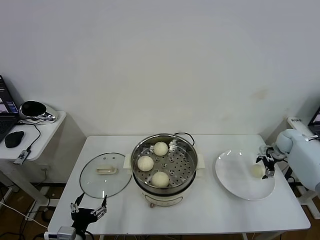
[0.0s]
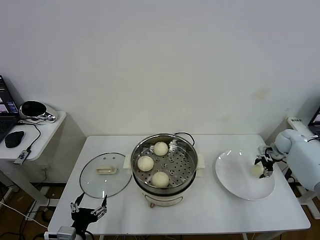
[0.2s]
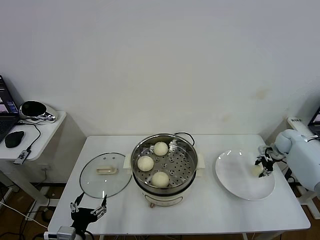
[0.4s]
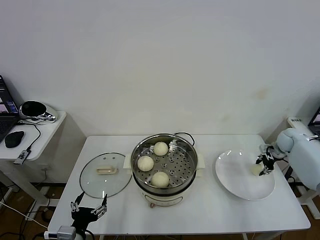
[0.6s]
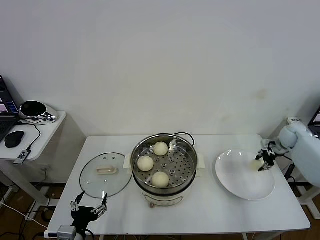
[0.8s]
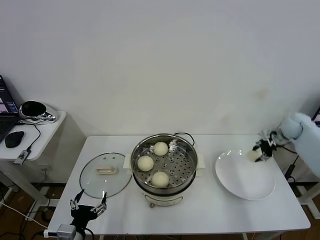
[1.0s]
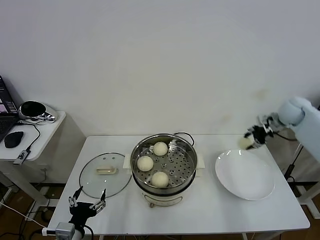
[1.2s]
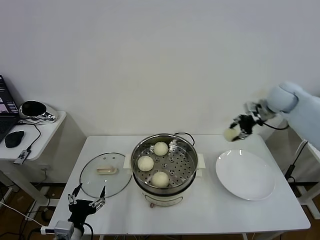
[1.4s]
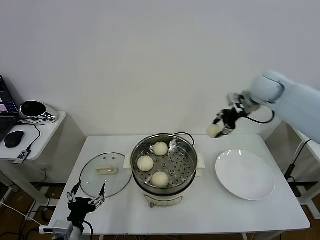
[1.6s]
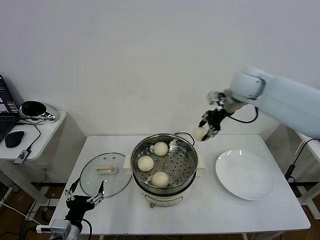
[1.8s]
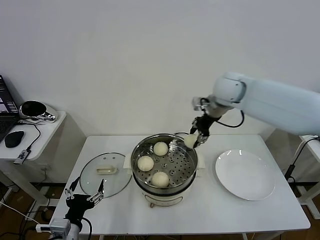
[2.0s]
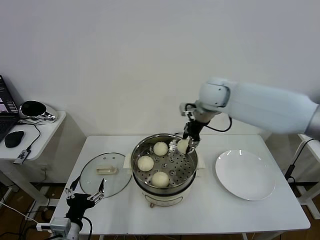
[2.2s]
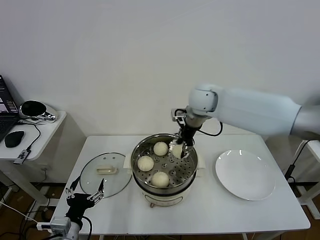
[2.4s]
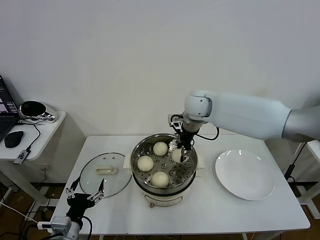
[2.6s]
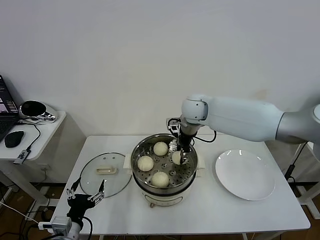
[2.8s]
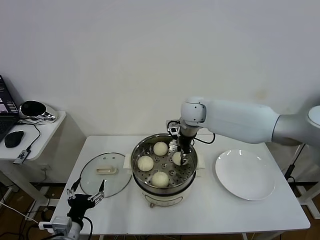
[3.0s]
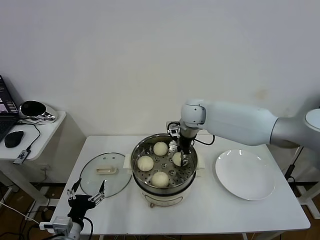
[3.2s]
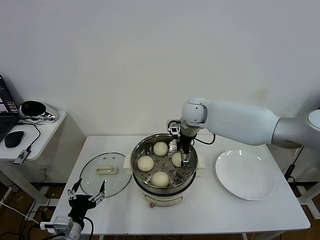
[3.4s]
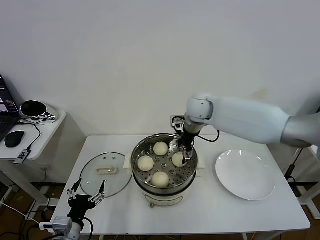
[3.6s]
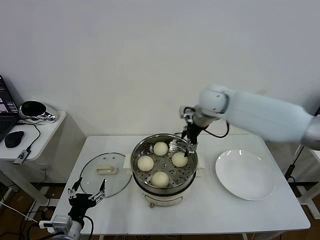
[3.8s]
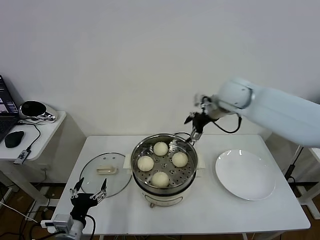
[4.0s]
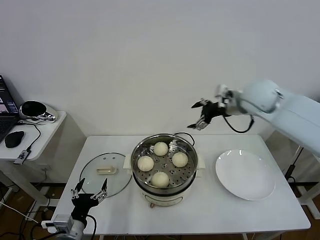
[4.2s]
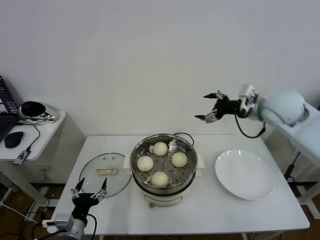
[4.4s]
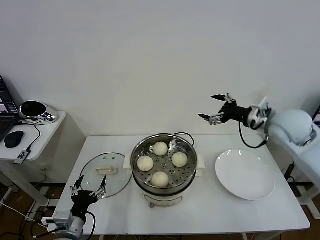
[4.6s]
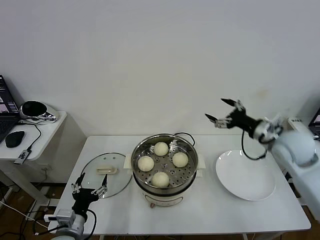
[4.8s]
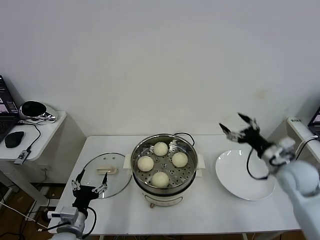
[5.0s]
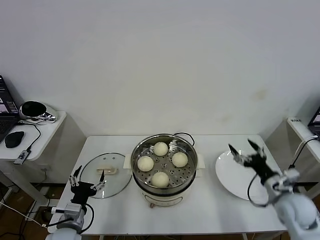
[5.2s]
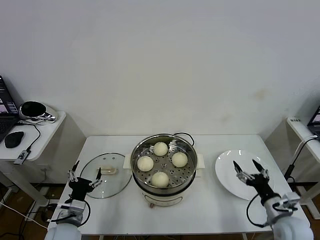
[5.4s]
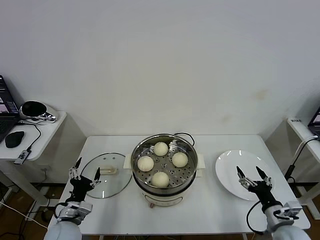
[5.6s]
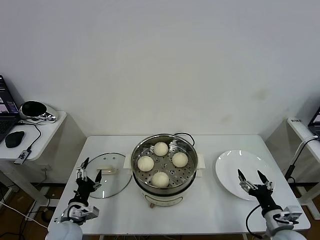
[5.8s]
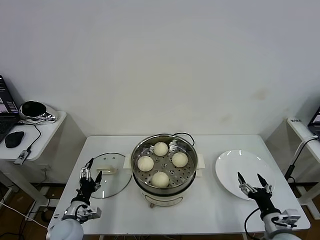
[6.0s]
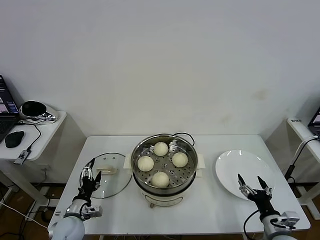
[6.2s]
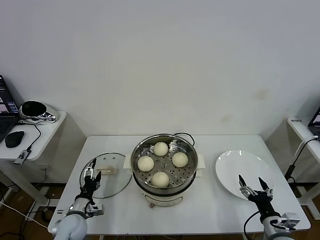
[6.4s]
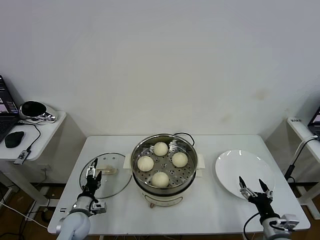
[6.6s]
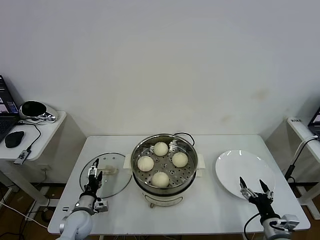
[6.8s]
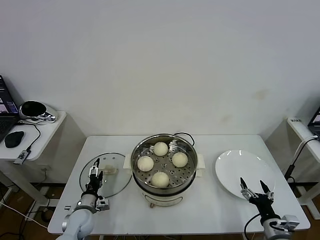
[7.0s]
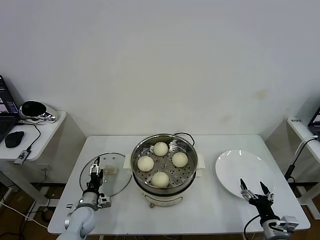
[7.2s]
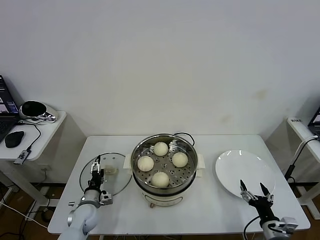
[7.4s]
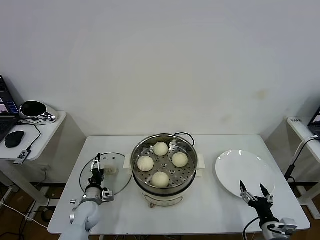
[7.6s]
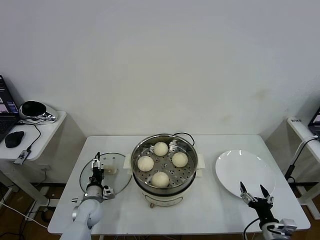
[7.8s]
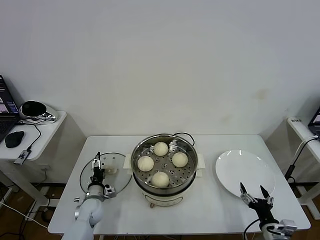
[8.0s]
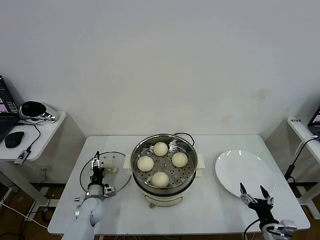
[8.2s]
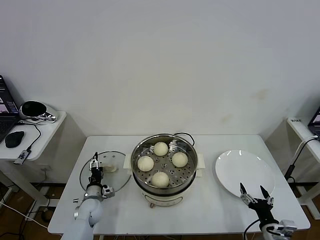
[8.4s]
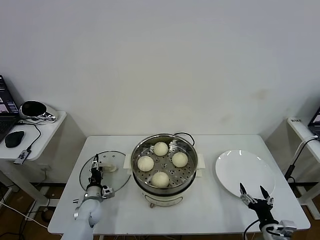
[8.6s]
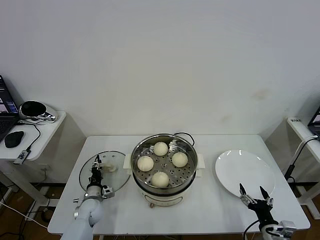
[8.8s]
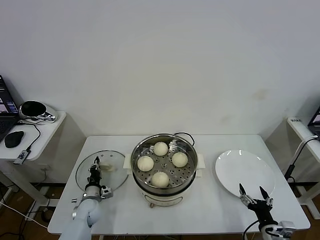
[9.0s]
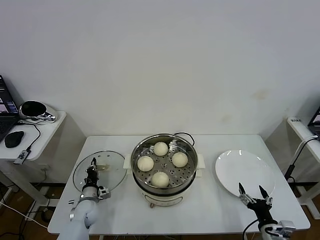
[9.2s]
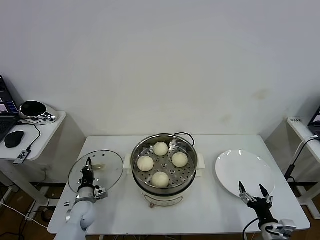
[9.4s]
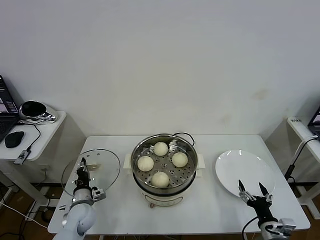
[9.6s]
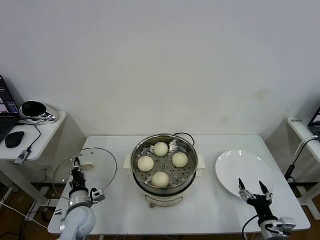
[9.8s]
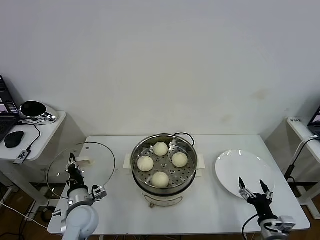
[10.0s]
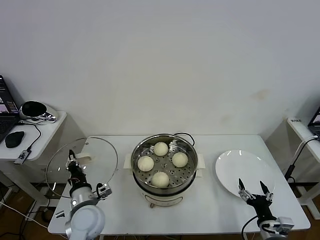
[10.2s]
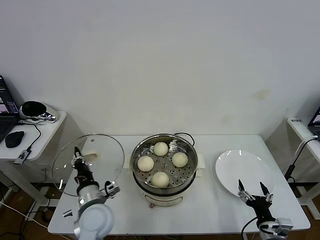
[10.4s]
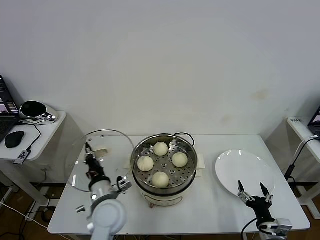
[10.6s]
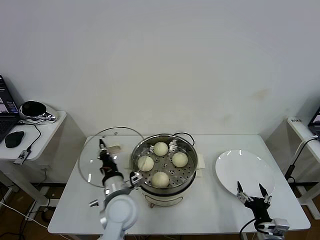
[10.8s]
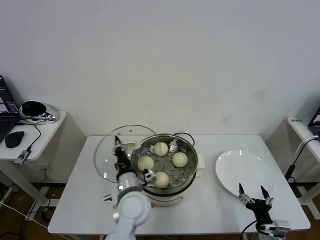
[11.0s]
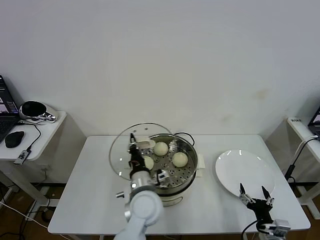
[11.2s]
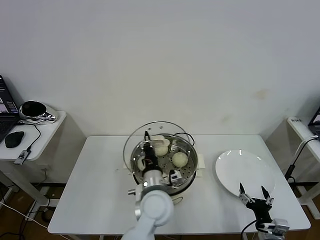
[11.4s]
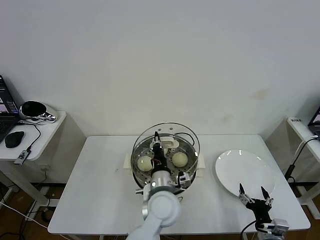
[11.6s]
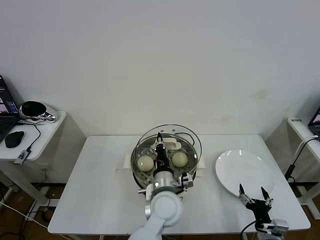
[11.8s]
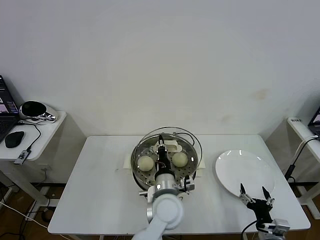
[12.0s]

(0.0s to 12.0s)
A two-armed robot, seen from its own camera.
Task of the whole recording: take steamed baozi put them in steamer then cover it.
Step, 0.8s - 3.6s: Place the baozi on the steamer with right gripper.
Step, 3.8s - 9.2s: Grasp the pot lid with left gripper.
0.0s - 1.6s: The right gripper travels upward and to the left by some 30 cm, and closes.
1.6s - 3.0s: The right gripper heads to the left and downward, covering about 20 cm.
3.0s - 4.4s: The right gripper travels to the right and backward by roughly 25 cm, and opens up.
4.4s - 6.0s: The left gripper heads forward and downward, covering about 10 cm. The right gripper heads downward and backward, covering some 40 cm.
6.0s - 7.6s: The left gripper goes some 10 cm forward and downward.
7.6s - 9.0s: The left gripper closes up.
9.0s - 10.4s: The left gripper heads upward, to the right and backward, covering roughly 25 cm.
10.4s - 12.0s: The left gripper is displaced to the right by roughly 20 cm.

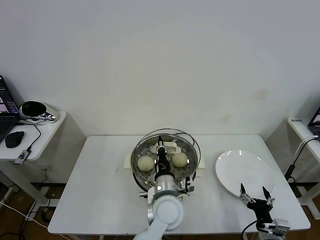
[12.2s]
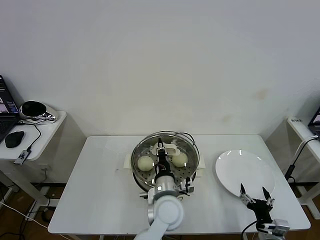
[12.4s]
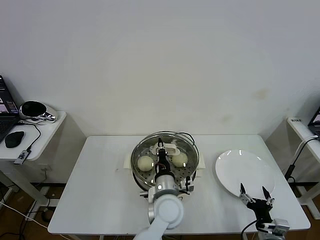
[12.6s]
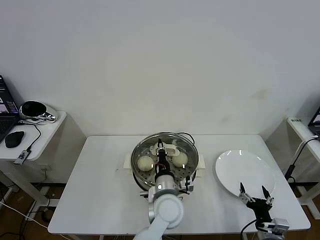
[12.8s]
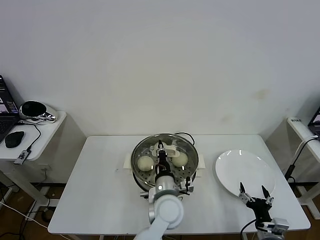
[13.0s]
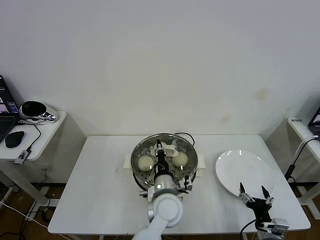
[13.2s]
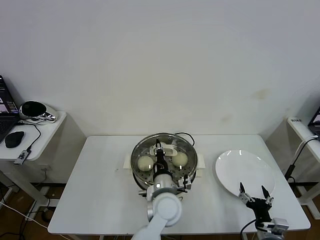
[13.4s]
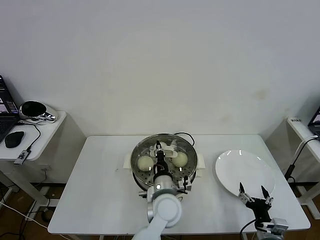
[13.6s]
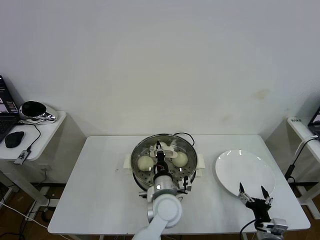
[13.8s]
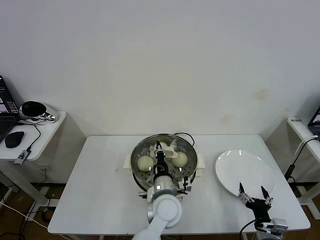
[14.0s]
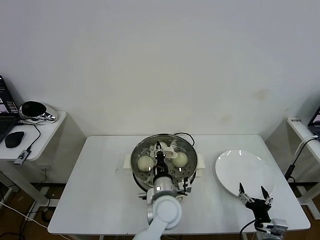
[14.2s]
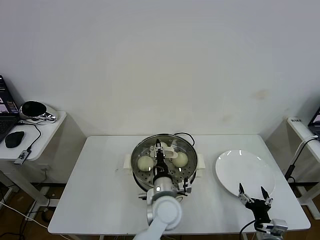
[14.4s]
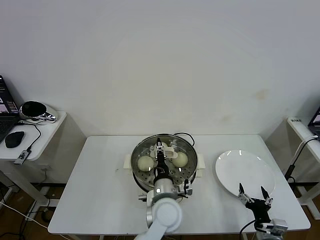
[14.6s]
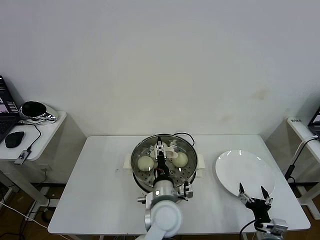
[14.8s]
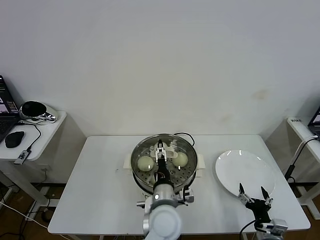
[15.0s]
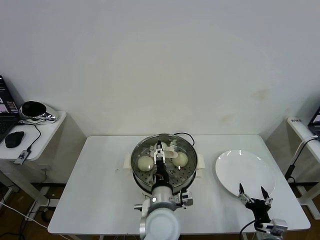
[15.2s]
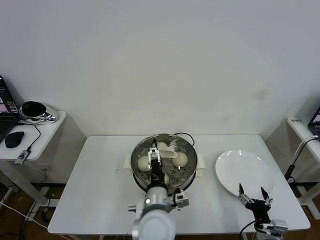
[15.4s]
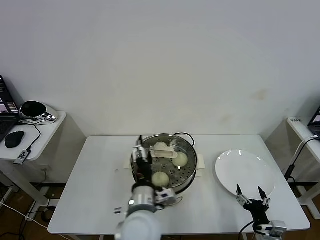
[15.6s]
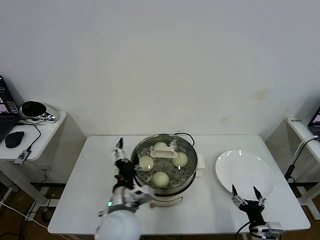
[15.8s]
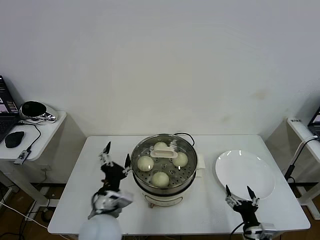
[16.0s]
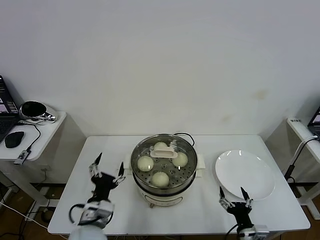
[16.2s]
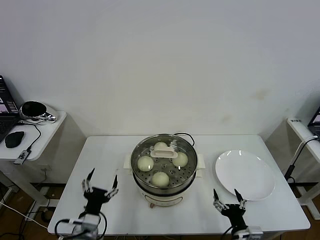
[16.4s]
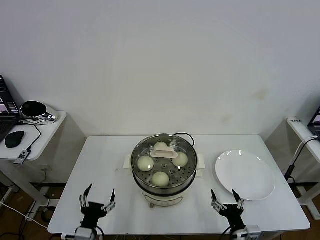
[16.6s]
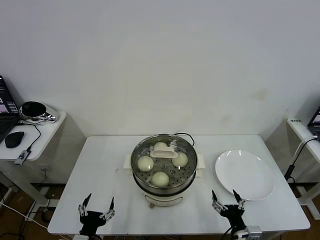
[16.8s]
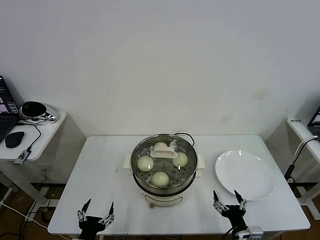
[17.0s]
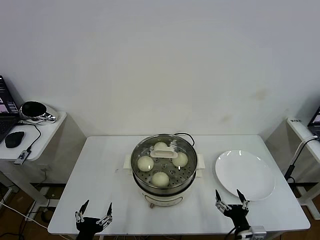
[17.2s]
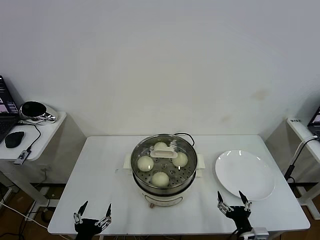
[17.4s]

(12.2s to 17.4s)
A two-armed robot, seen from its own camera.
Task of the whole recording: take steamed baozi put them in steamer then cover it.
Step, 12.2s - 14.6s: Place the pot lid on the steamer with left gripper.
12.2s - 14.0s: The grippers move only a little.
14.0s - 15.6s: The left gripper shifts some 10 cm backward, upward and to the left, and opens up.
15.6s - 17.4s: The left gripper shifts approximately 25 cm to the left, backward and downward. Meanwhile the right gripper shifts some 5 cm to the left.

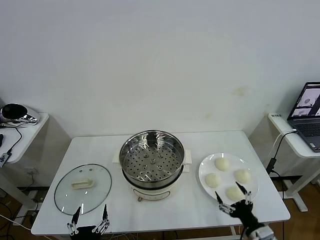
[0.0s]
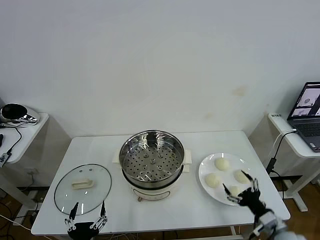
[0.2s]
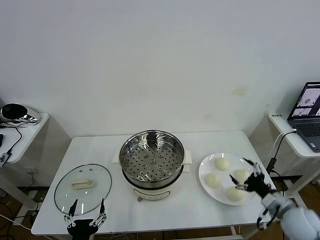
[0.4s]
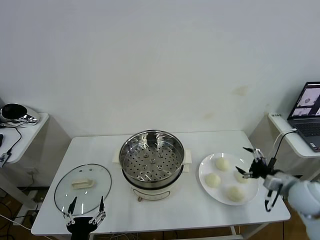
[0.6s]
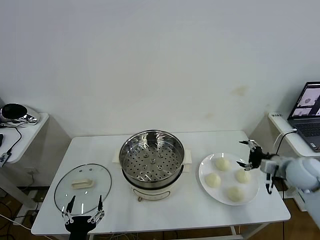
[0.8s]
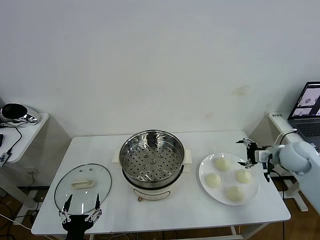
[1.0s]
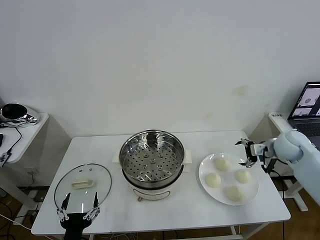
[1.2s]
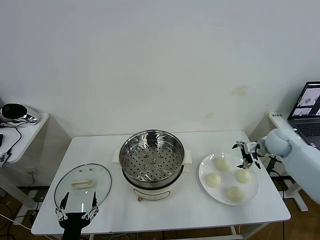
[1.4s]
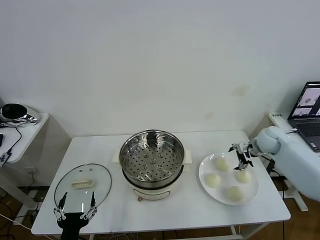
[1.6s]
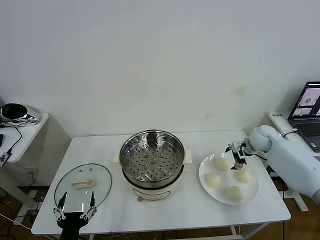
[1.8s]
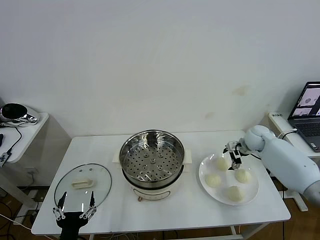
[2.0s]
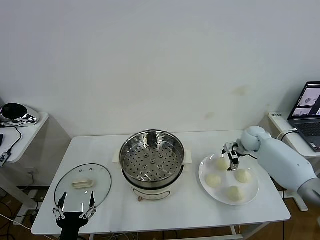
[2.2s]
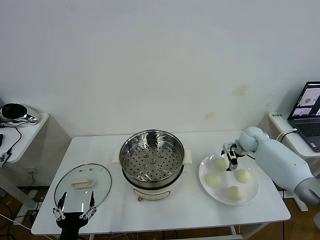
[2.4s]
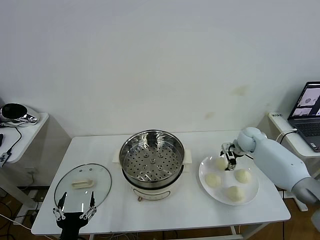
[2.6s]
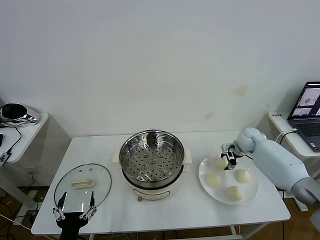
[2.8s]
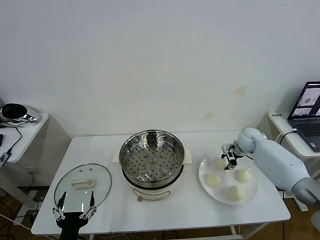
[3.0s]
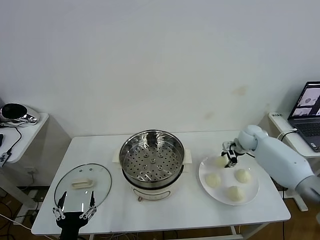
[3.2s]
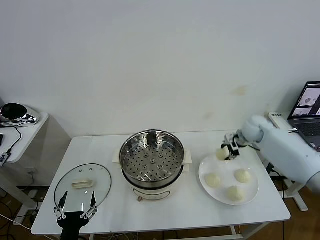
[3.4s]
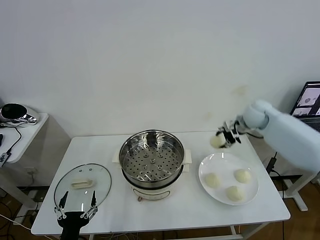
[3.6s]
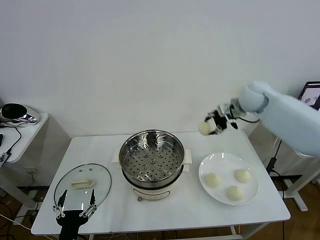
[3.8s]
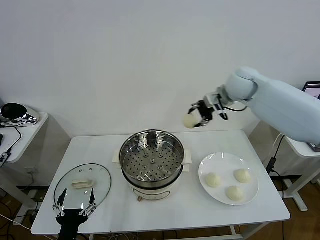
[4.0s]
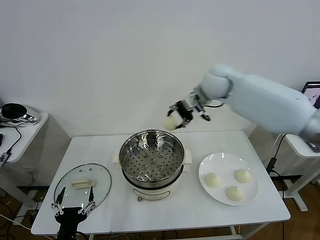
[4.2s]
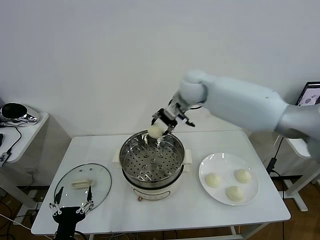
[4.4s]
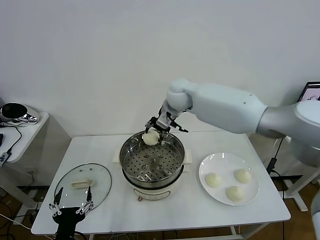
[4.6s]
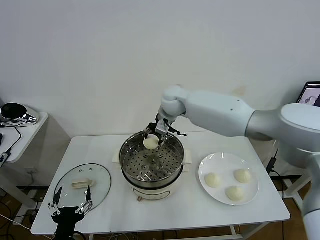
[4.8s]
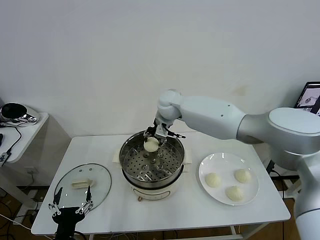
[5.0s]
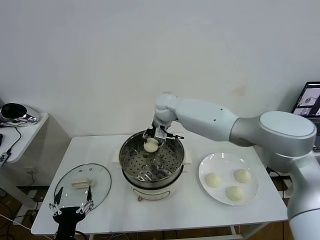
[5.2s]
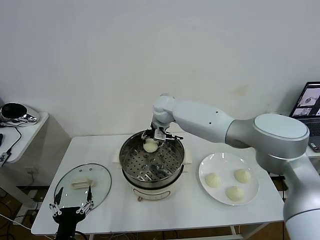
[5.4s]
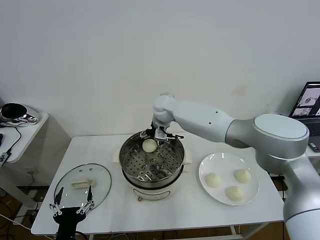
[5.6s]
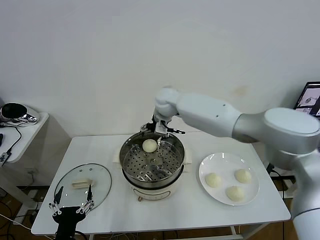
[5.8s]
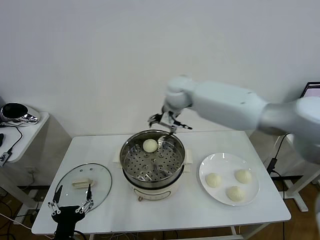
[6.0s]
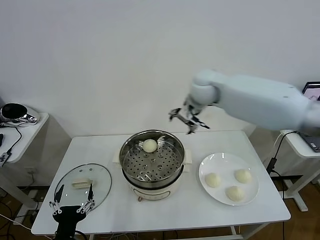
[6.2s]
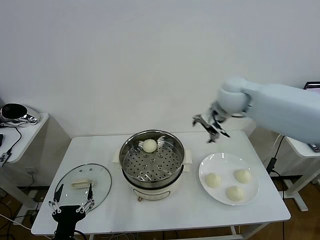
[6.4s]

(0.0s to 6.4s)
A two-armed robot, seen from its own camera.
Task of the whole recording: take steamed baozi put them in steamer then cover it.
Step, 0.0s - 2.8s: Grasp the baozi in the plate with right gripper.
Step, 3.0s - 5.6s: Place the baozi on the steamer with right gripper.
1.6s - 3.2s: The right gripper closes its fingers.
3.2s - 4.8s: The right gripper shifts roughly 30 cm to the left.
4.8s - 6.4s: The right gripper heads to the right, covering approximately 20 cm, and opens up.
